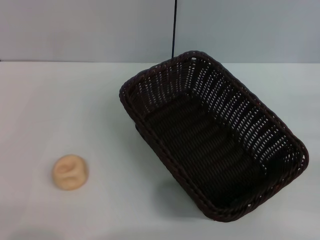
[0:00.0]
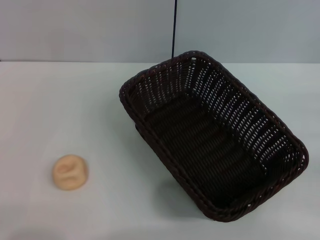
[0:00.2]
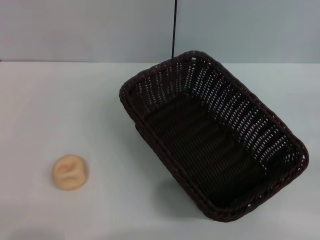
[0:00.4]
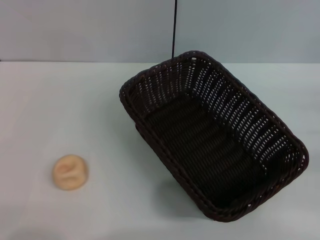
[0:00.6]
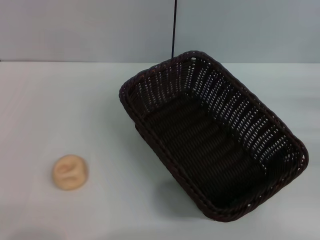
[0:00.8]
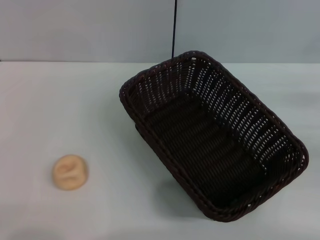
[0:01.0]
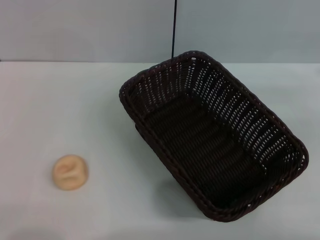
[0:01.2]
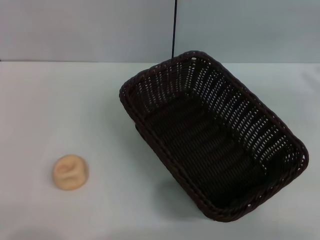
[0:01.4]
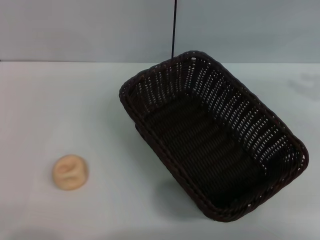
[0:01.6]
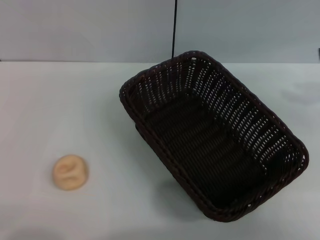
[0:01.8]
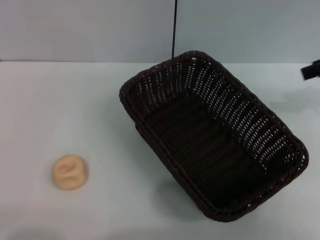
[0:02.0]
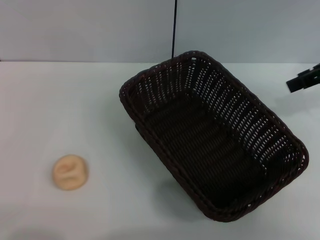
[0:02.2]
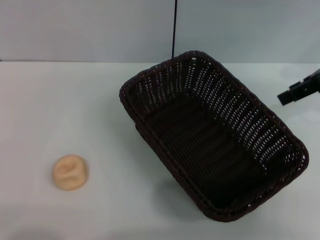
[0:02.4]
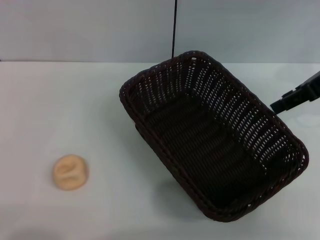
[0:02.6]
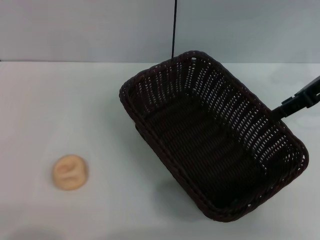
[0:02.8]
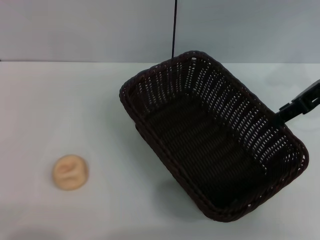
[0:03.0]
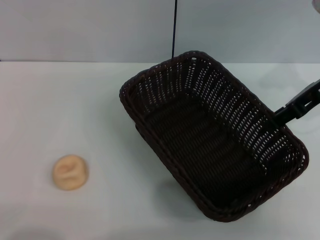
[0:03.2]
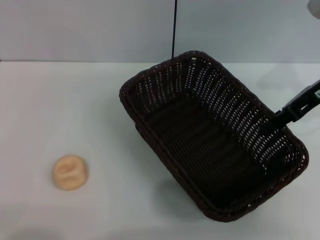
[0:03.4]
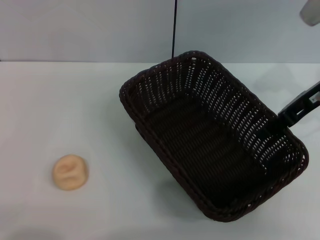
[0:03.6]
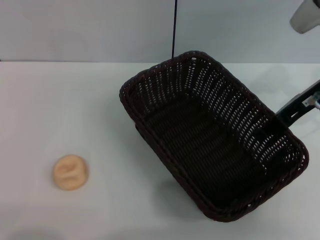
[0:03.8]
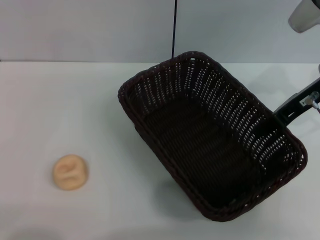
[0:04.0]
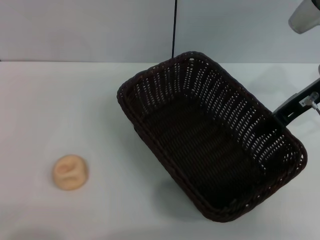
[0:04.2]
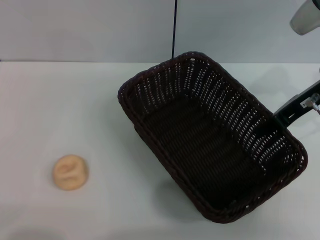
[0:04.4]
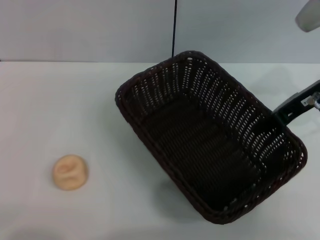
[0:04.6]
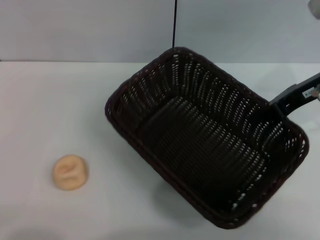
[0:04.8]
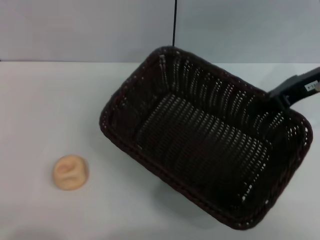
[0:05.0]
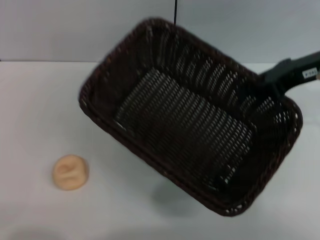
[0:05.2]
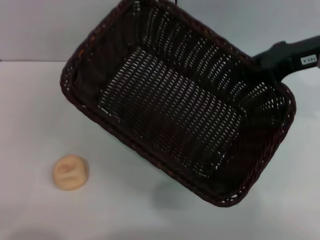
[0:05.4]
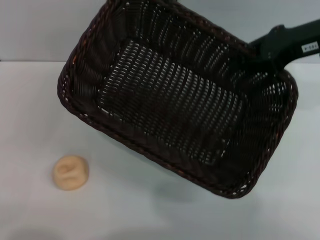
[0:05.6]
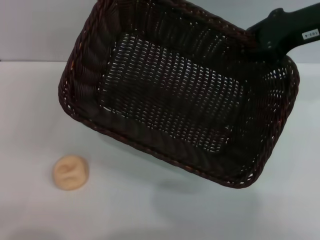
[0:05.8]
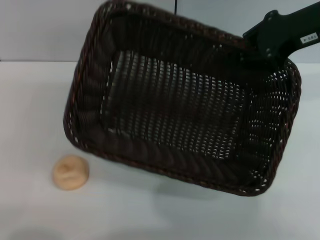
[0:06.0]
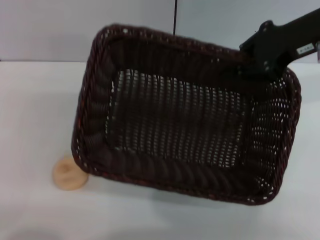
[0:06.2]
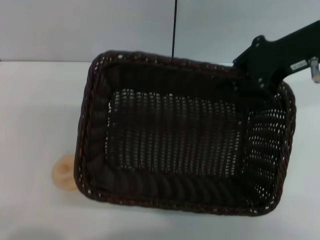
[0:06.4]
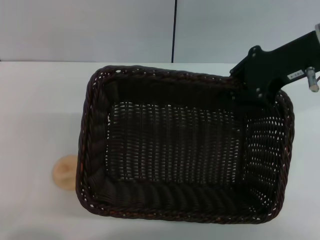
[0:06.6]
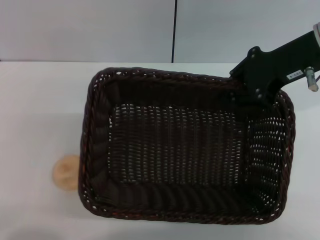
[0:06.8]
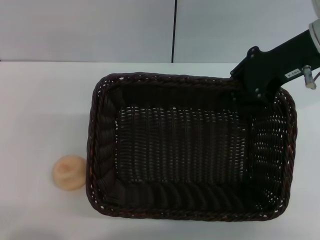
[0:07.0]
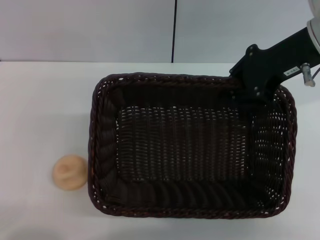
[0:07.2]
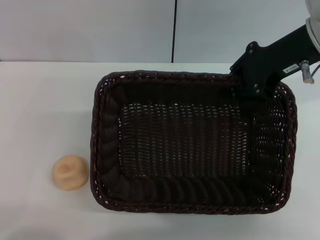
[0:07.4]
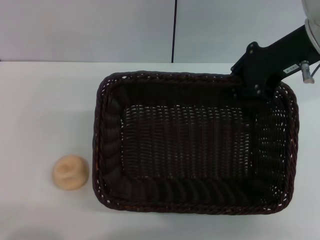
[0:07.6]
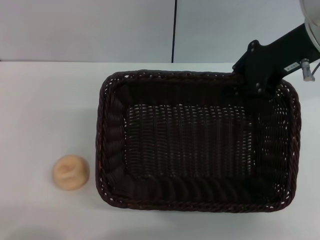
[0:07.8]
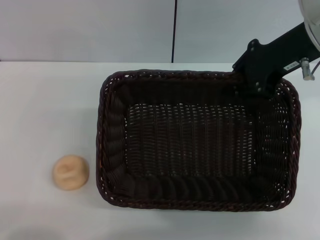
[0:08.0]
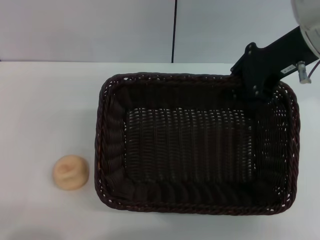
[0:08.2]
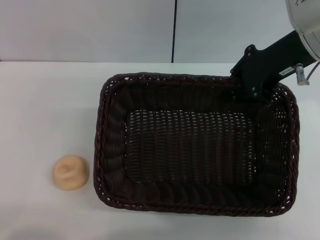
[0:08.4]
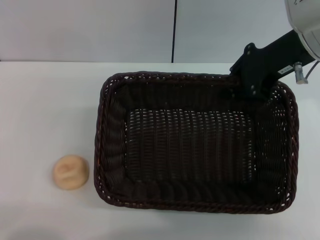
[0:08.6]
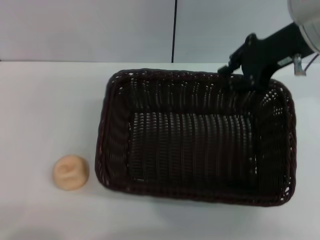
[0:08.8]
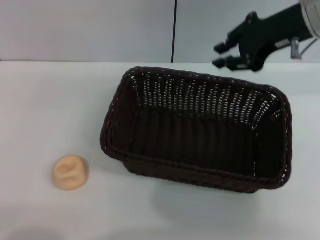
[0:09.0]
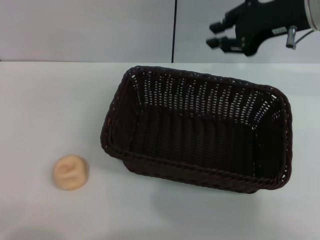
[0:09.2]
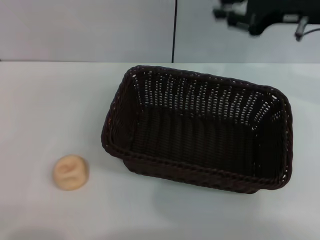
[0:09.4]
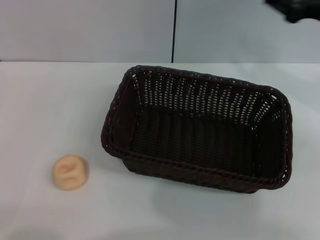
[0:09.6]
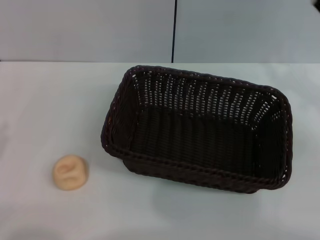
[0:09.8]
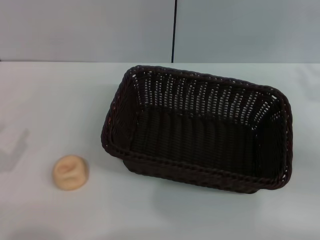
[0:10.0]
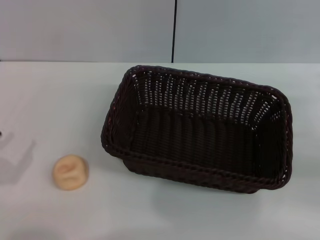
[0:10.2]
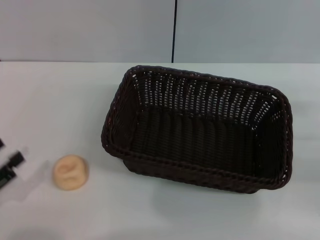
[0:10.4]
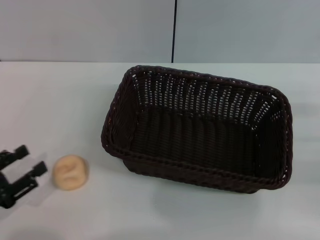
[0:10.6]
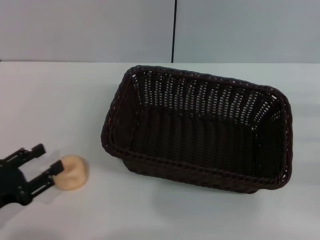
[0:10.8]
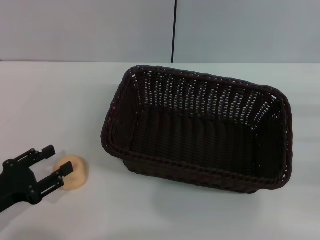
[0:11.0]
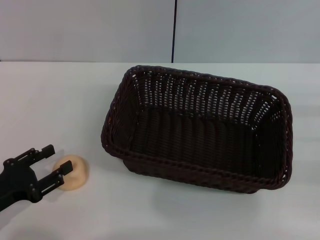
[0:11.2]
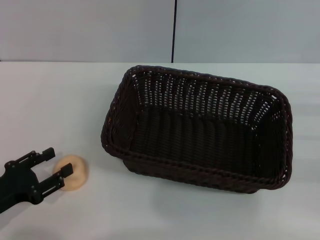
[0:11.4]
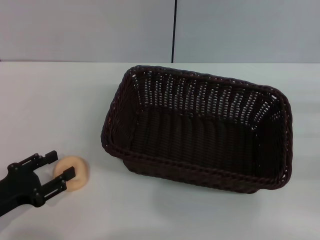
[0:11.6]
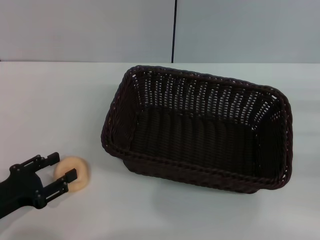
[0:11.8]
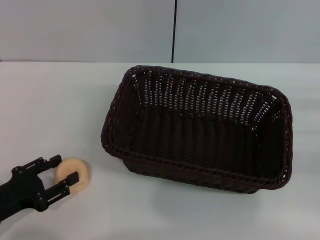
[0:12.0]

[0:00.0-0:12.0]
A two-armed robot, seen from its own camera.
Step, 0:00.0 to 0:09.0: Move the basket to the center of view with the right gripper.
0:00.0 to 0:01.6: The right gripper heads upward, covering approximately 20 cm.
0:01.6 to 0:03.0: The right gripper shifts roughly 10 cm to the left.
0:03.0 to 0:04.4: The right gripper closes its fingers.
0:04.4 to 0:06.0: The right gripper travels upward by roughly 10 cm.
0:09.0 to 0:10.4: The right gripper goes about 30 cm to the right, downward and backward, and opens up.
0:10.4 to 0:12.0: The left gripper ends up roughly 5 cm from where it was.

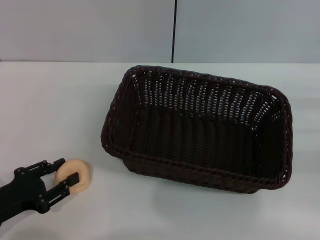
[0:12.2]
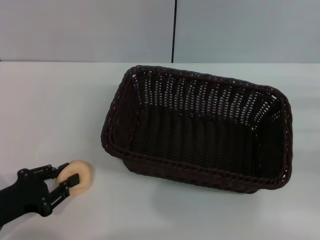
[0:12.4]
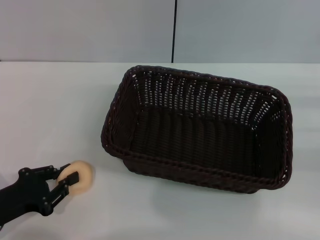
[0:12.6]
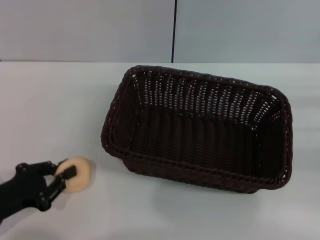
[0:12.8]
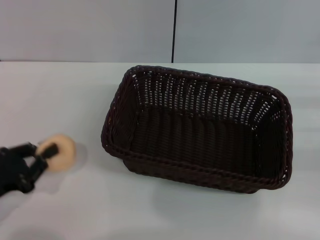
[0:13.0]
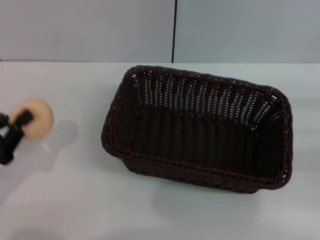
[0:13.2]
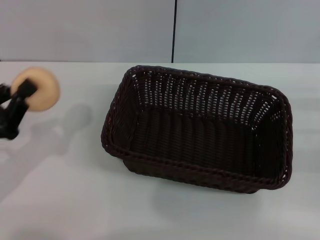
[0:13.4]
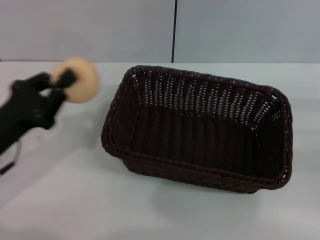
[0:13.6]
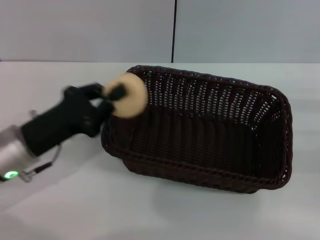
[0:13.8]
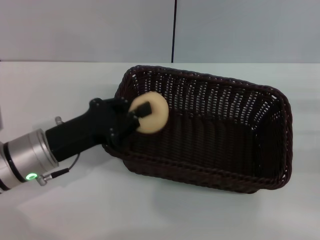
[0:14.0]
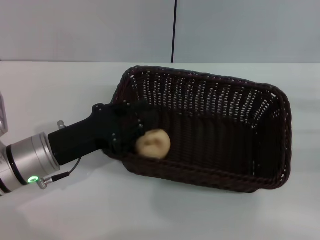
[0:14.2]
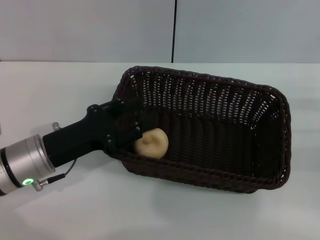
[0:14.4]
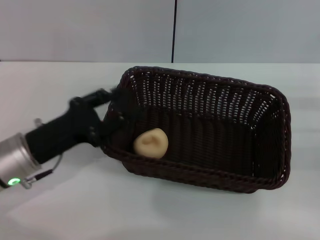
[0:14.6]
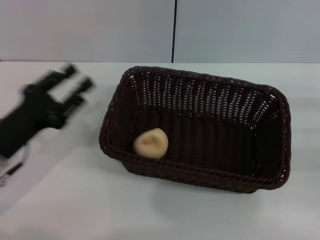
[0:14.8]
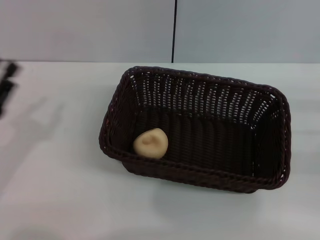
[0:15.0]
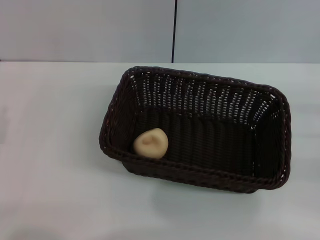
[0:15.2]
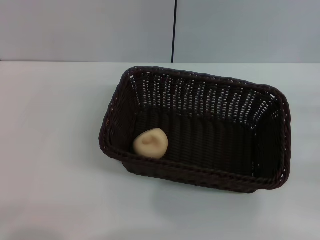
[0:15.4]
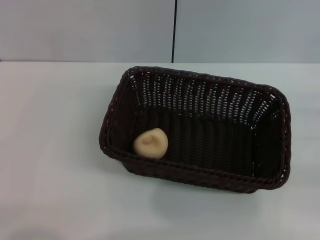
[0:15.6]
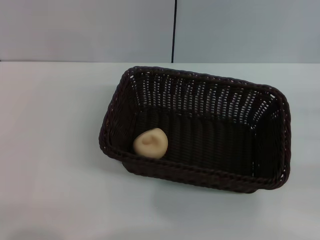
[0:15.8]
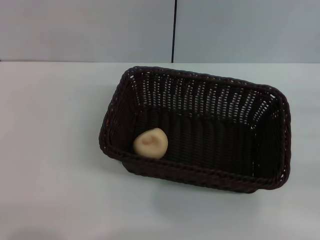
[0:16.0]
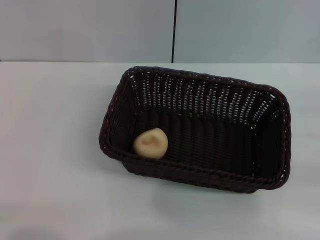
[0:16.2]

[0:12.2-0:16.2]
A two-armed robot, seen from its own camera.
Step, 0:13.2 to 0:14.4: Place the egg yolk pastry into the basket with the left gripper.
0:12.2 to 0:13.6: The left gripper heads upward and forward, covering some 10 cm, and closes up.
0:13.6 to 0:14.8: The left gripper opens up.
0:14.8 to 0:16.2: The left gripper moves to the left and backward, about 15 cm.
